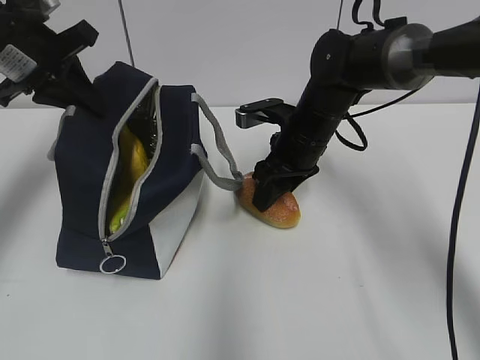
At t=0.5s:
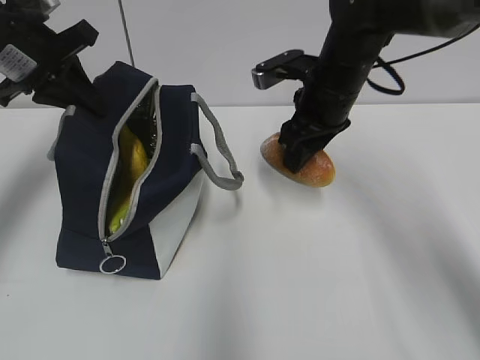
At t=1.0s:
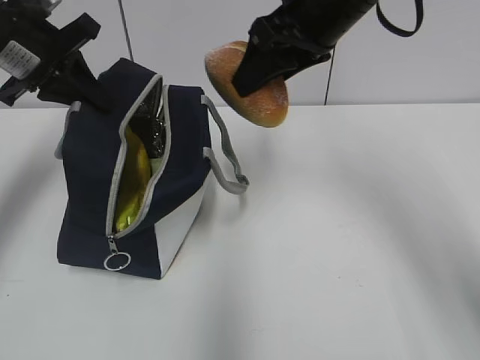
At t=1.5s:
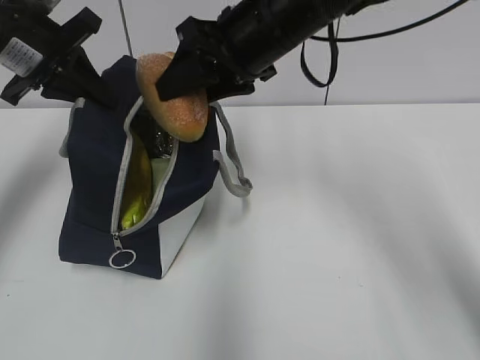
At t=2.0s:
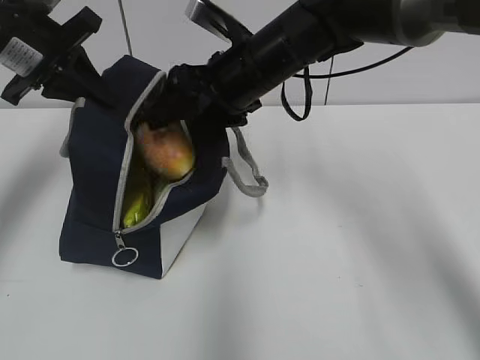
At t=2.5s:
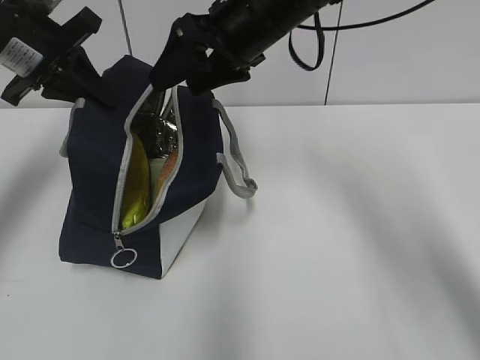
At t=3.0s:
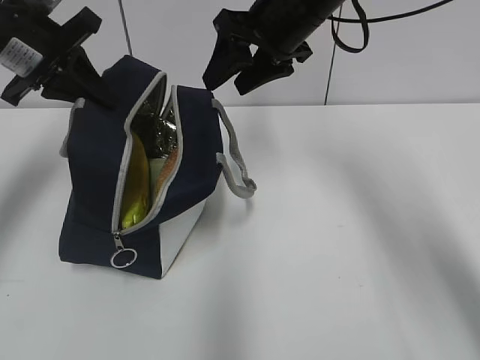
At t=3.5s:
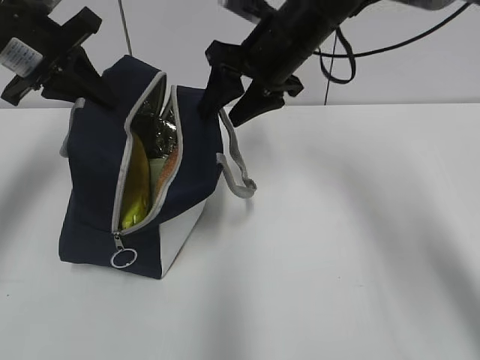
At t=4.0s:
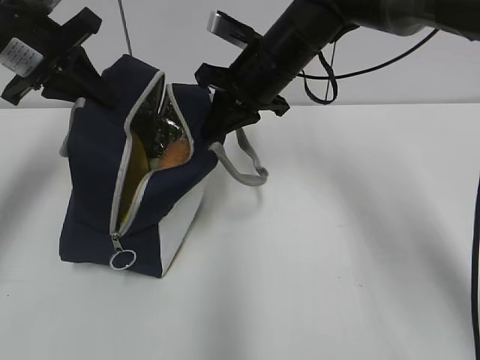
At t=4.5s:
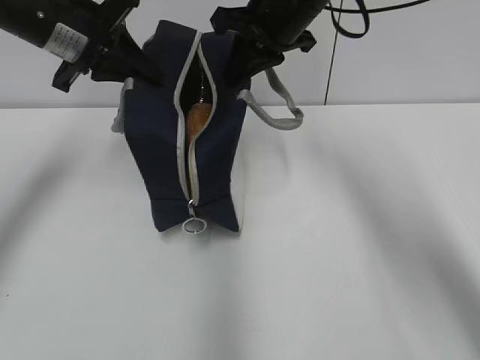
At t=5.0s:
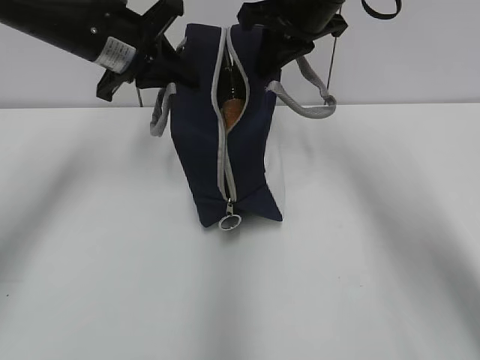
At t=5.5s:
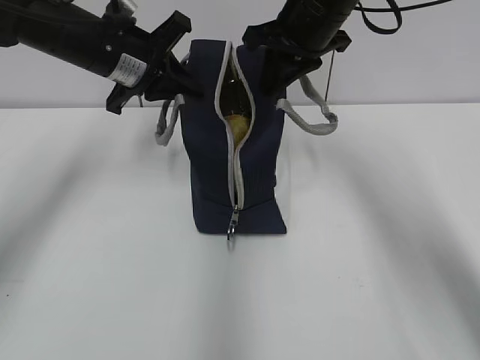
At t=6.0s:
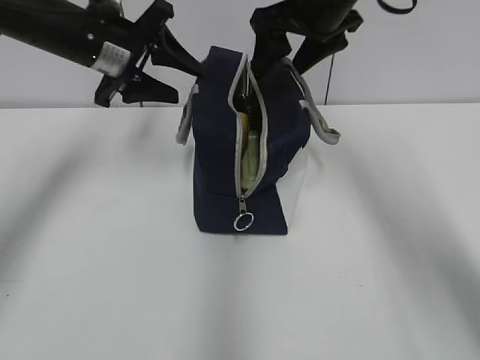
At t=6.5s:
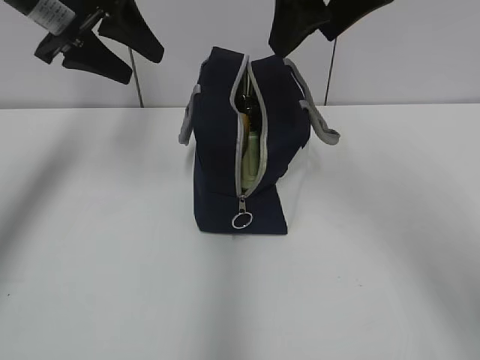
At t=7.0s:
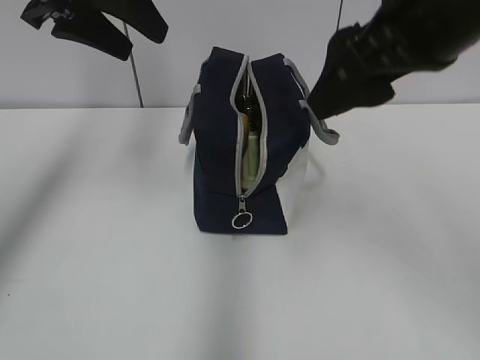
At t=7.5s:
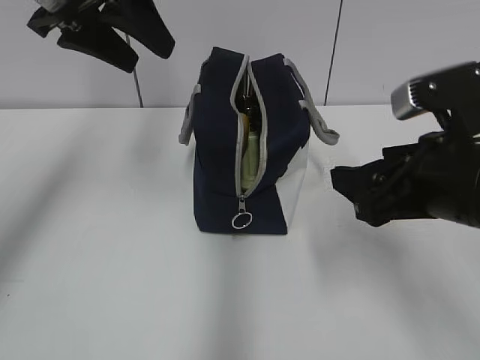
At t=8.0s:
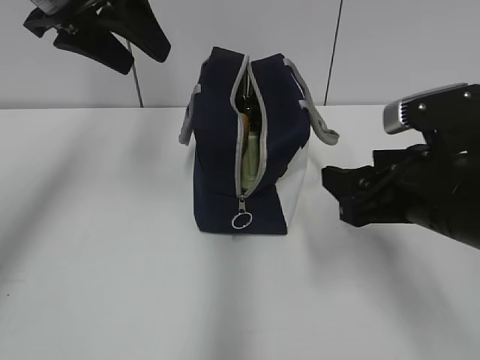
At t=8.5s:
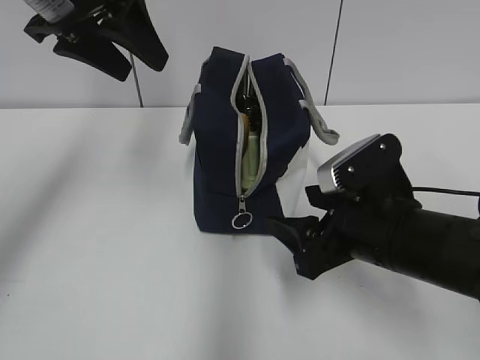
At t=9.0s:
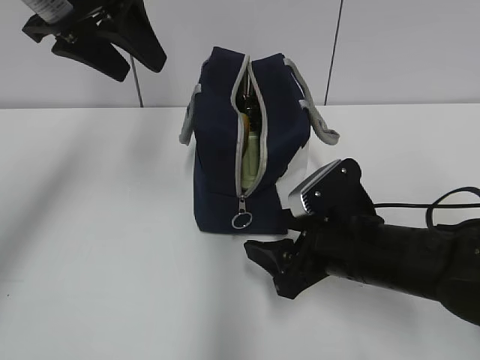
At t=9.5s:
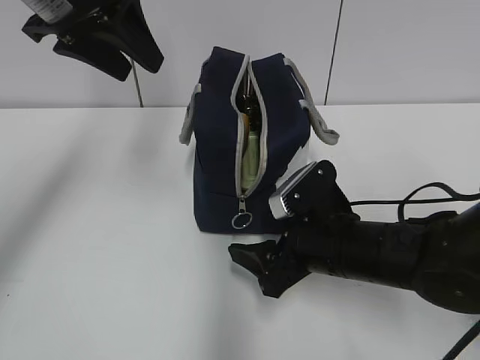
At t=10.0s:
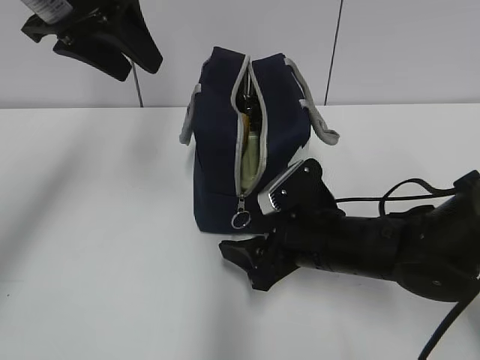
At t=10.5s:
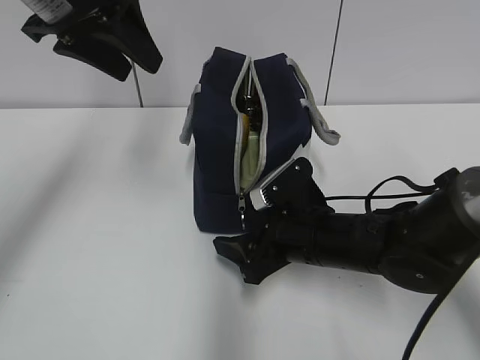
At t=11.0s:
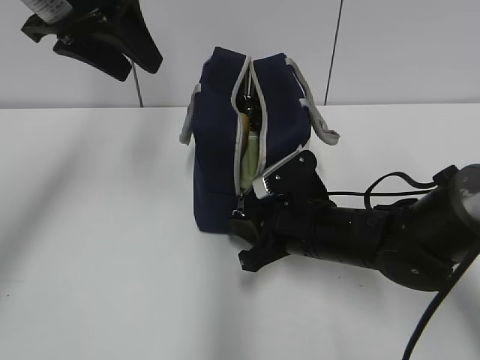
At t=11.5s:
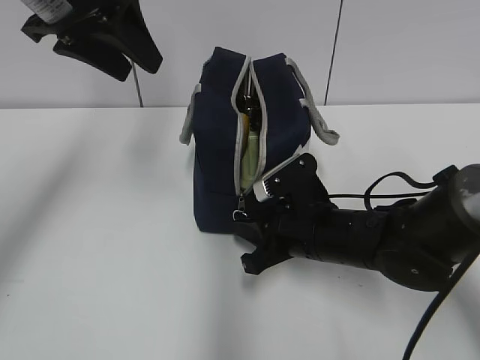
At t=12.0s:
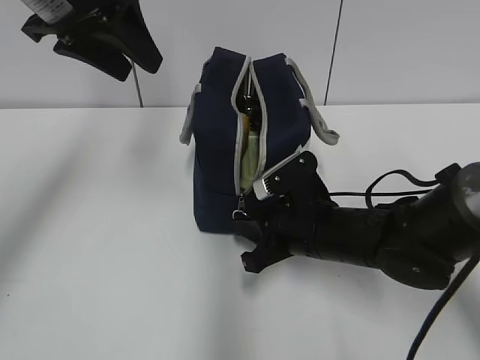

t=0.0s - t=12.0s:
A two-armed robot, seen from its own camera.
Step, t=2.5s - t=4.0s: Grab the lunch bag with your right hand.
Step, t=4.5s - t=5.5s: Move the lunch bag to the right.
t=0.0s - t=2.0s: The right gripper goes roughly 10 cm upward and to the left.
t=2.0s - t=4.0s: The right gripper closes its fingers.
t=4.0s - t=6.0s: The left gripper travels to the right by some 5 cm, and opens, while the right gripper shifts some 10 cm upward and to the right, and opens up.
t=6.0s - t=8.0s: The left gripper travels upward and backward by roughly 10 cm. Meanwhile the right gripper heads backward and downward, covering roughly 25 cm.
t=8.0s - t=10.0s: The right gripper moves downward, to the left and forward, roughly 15 cm.
t=10.0s - t=12.0s: The right gripper closes up.

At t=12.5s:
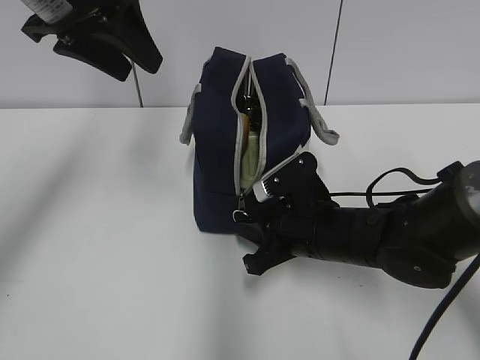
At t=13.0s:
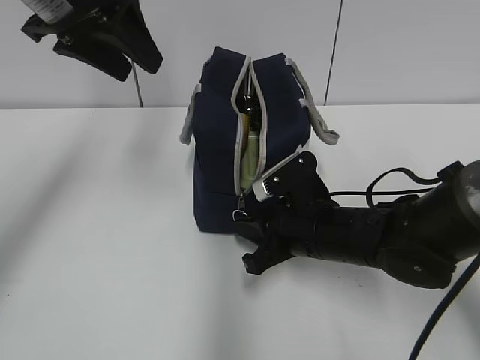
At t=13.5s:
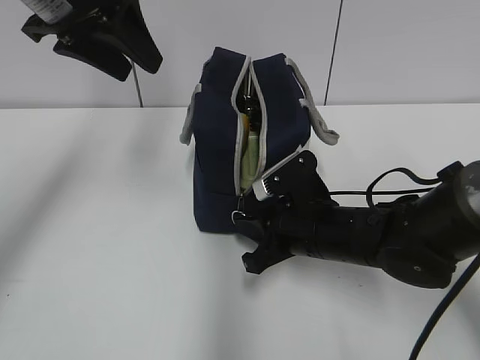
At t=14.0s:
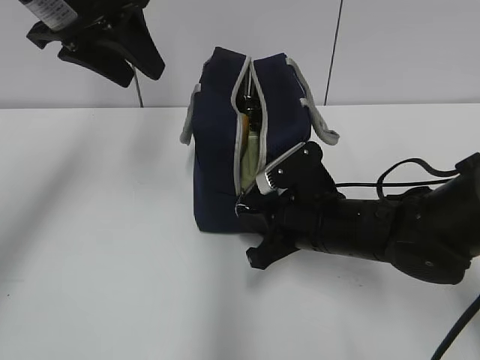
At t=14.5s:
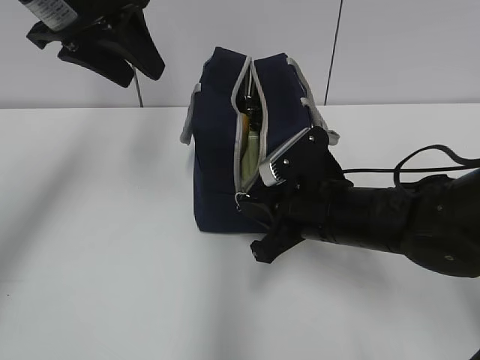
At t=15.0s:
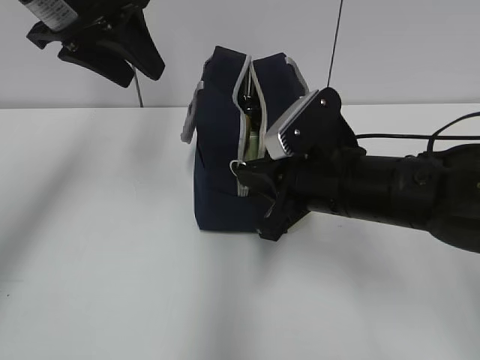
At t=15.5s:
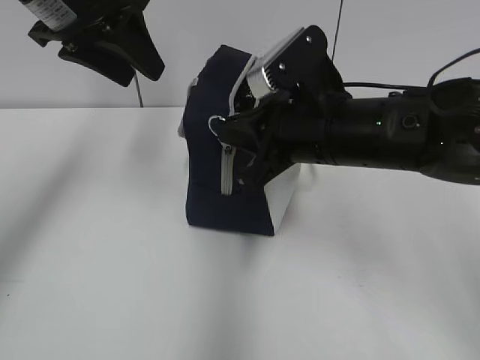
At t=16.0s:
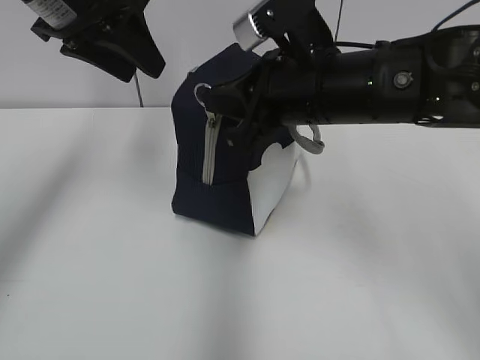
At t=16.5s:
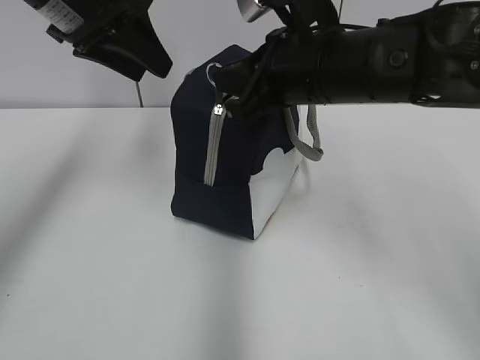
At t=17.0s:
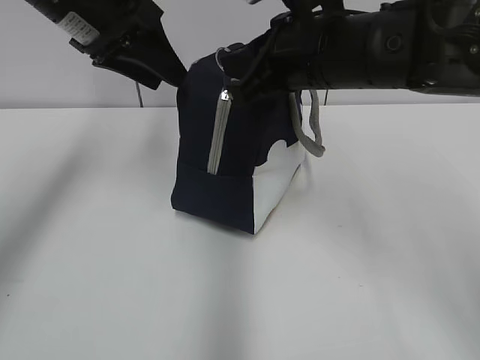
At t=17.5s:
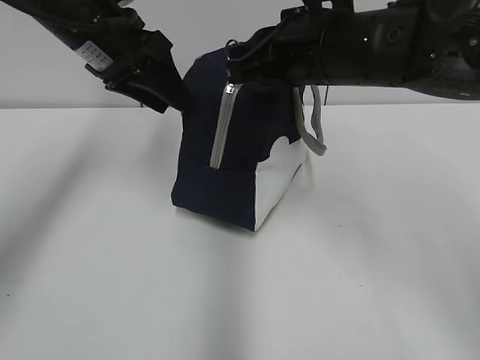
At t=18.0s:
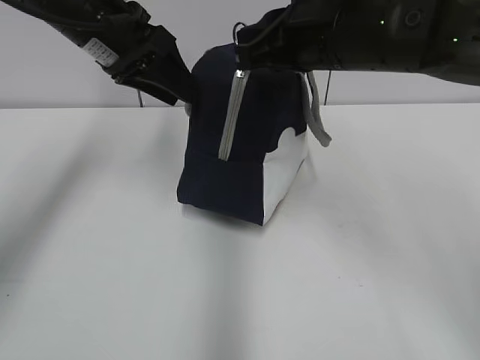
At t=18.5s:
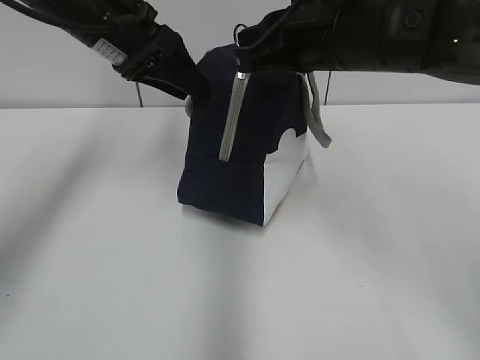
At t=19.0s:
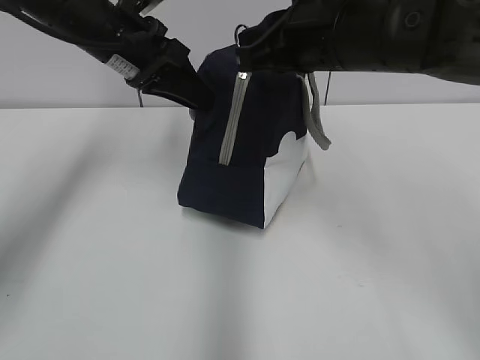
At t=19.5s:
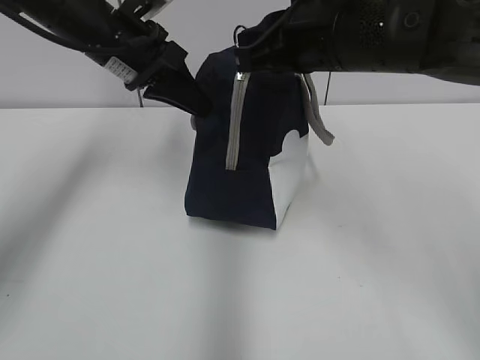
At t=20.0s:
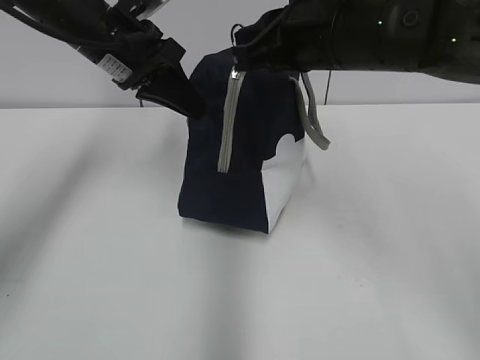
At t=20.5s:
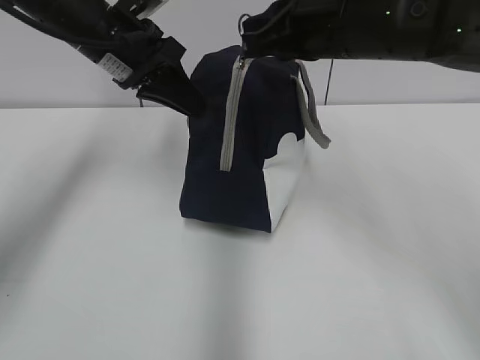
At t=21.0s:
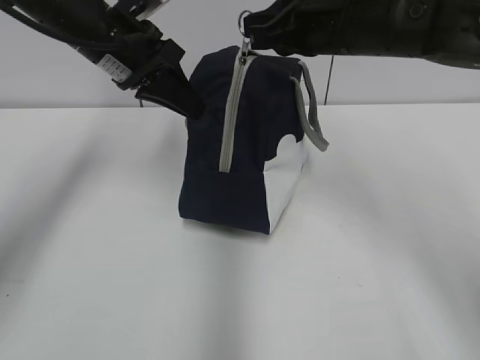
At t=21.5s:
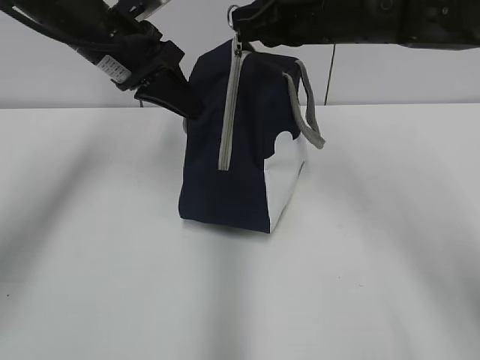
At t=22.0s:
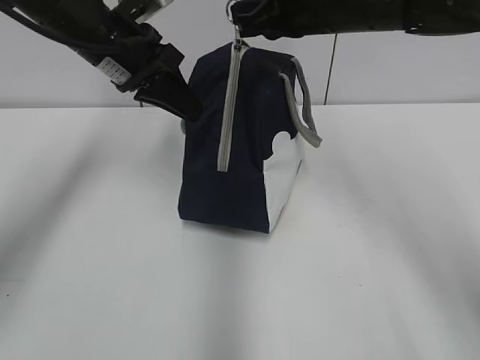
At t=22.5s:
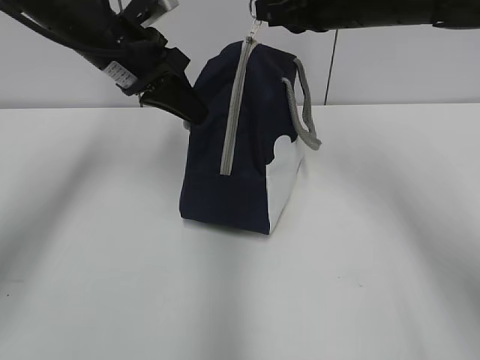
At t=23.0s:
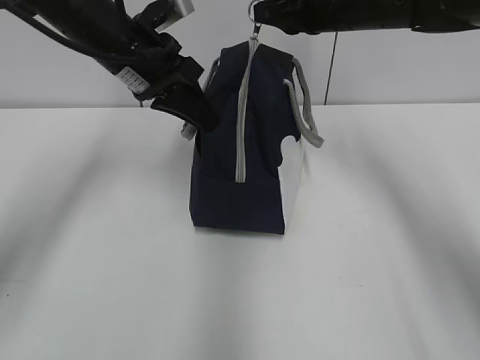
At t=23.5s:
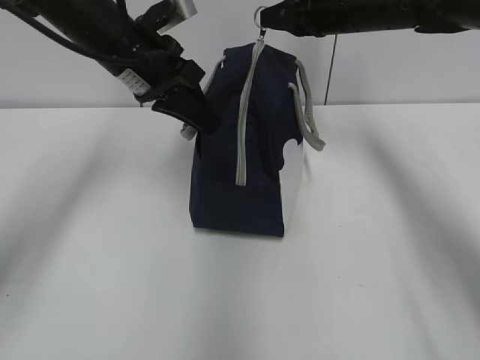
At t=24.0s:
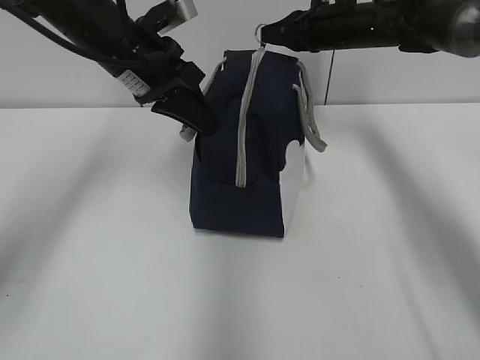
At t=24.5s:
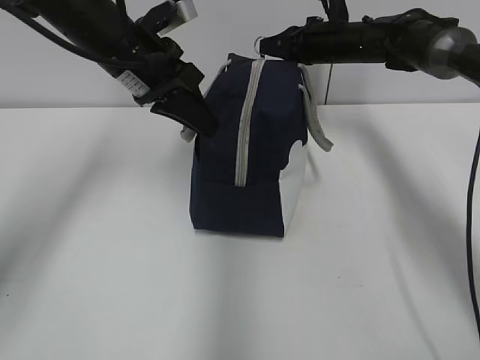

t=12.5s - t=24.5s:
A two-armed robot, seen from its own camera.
t=12.5s - t=14.5s: The grippers stay close to where they were, moving slightly.
t=14.5s - t=16.5s: The right gripper shifts some 15 cm upward.
t=16.5s - t=18.5s: The left gripper changes place by some 5 cm.
t=18.5s - t=20.5s: The left gripper closes its fingers.
t=20.5s - t=22.5s: The right gripper moves forward, approximately 5 cm.
t=22.5s - t=24.5s: The right gripper heads forward and downward, covering about 20 cm.

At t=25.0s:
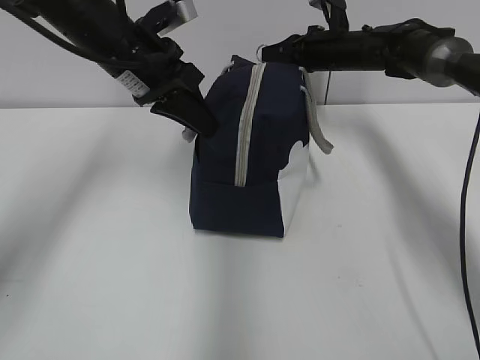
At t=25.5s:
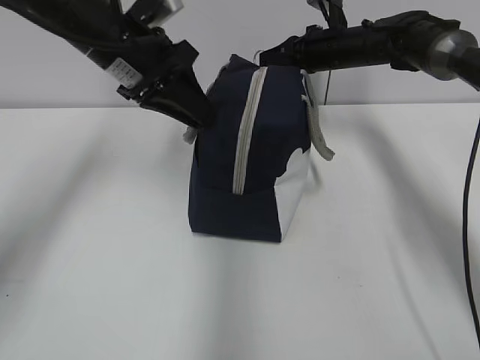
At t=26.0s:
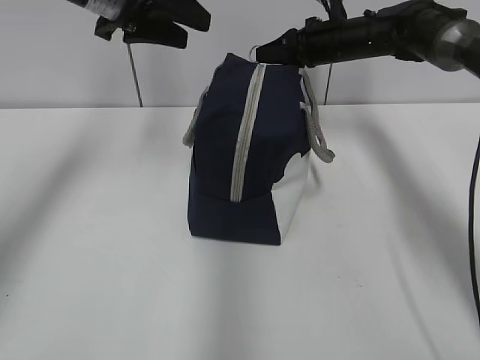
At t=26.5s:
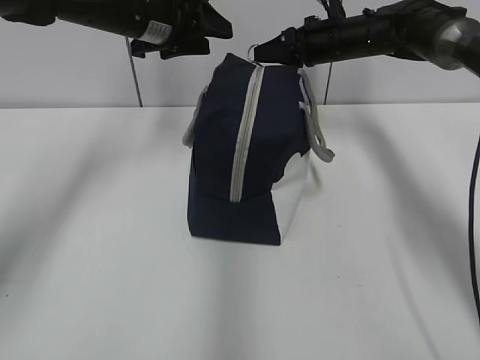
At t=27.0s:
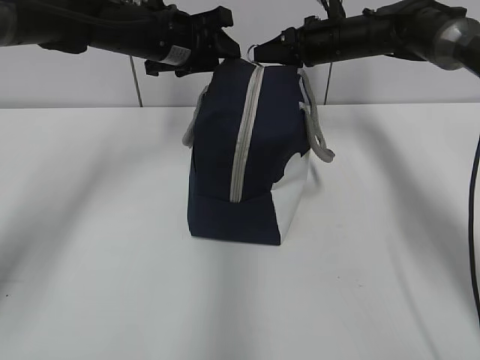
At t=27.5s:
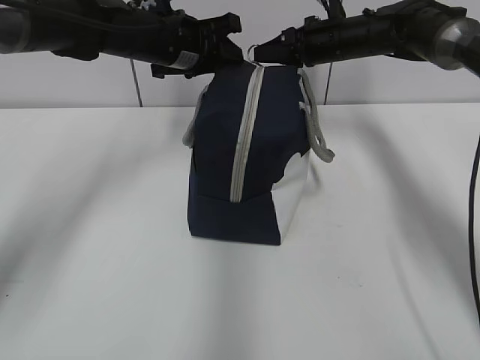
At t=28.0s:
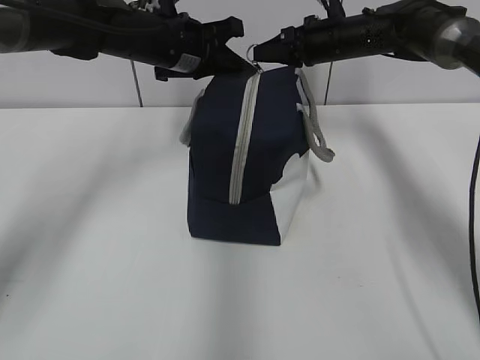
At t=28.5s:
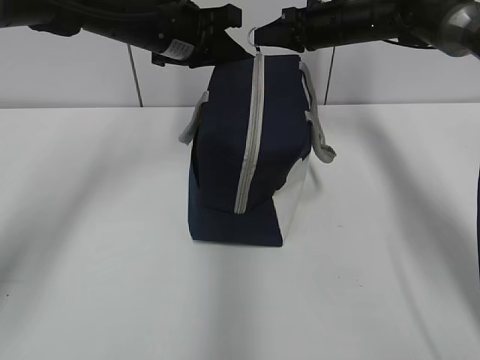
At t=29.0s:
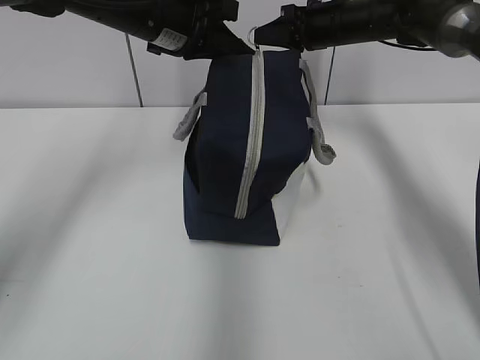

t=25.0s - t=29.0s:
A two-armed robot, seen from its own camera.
t=25.0s - t=27.0s: The left gripper goes some 5 cm forward, reaches about 5 cm upward, then returns, and opens its fingers.
t=27.0s - t=29.0s: The left gripper moves approximately 5 cm, and closes.
